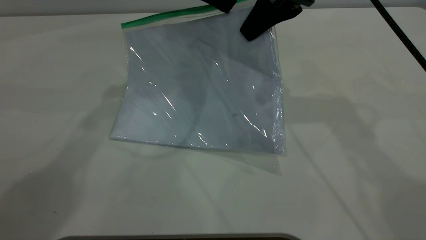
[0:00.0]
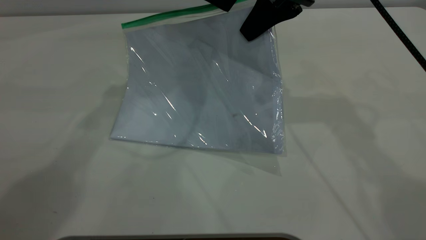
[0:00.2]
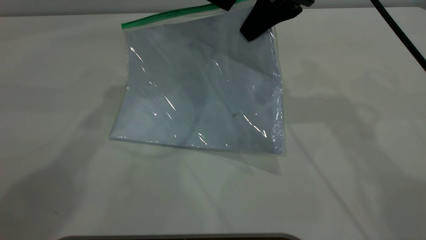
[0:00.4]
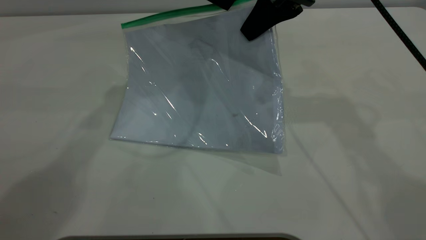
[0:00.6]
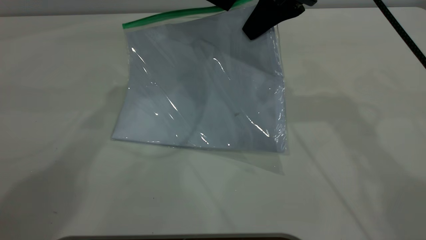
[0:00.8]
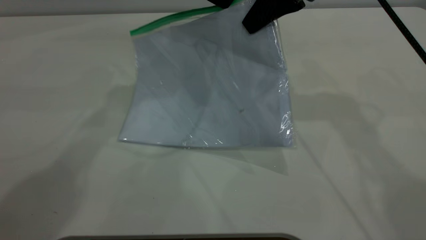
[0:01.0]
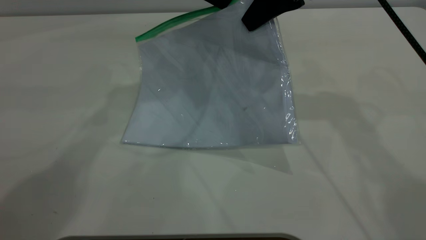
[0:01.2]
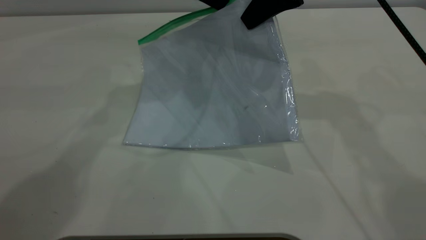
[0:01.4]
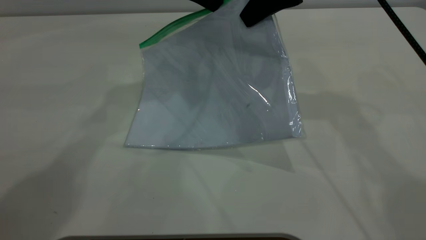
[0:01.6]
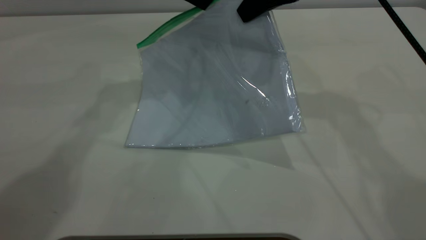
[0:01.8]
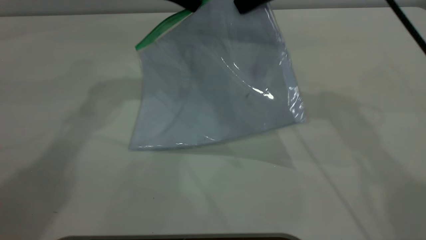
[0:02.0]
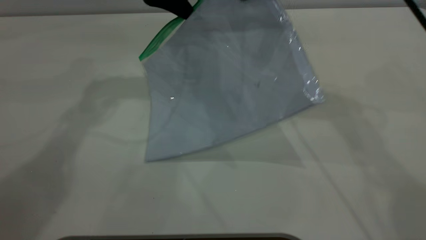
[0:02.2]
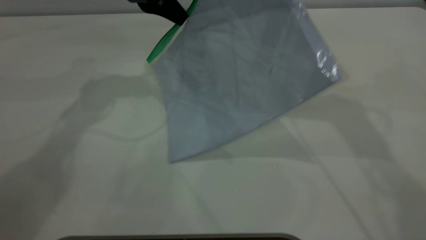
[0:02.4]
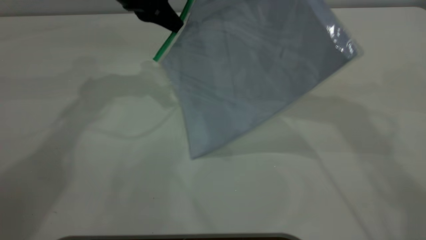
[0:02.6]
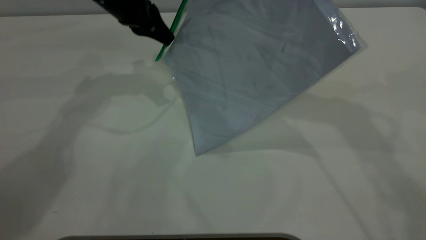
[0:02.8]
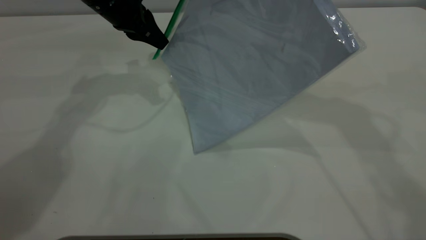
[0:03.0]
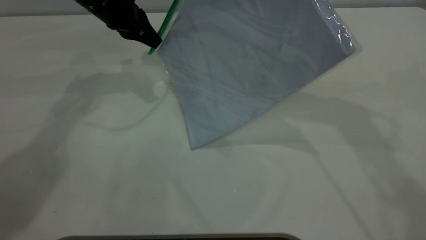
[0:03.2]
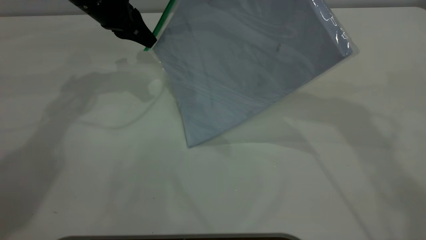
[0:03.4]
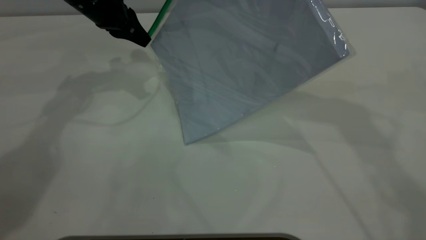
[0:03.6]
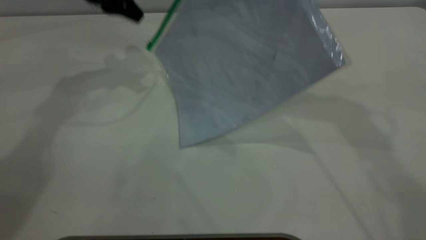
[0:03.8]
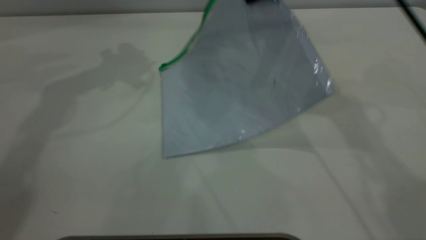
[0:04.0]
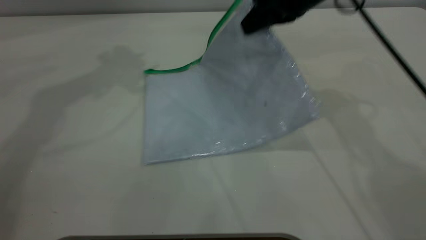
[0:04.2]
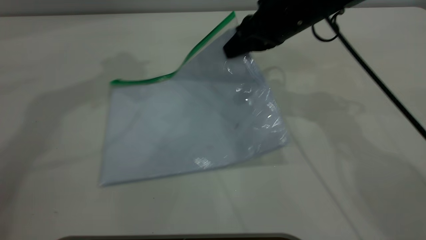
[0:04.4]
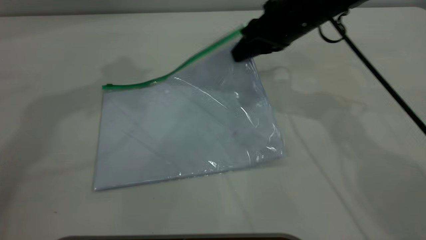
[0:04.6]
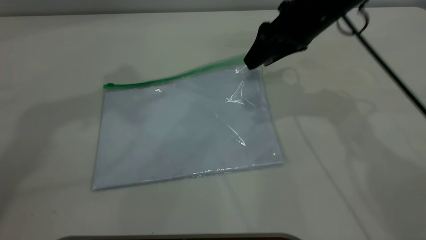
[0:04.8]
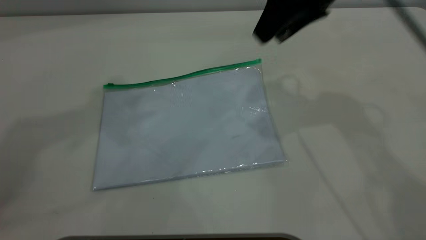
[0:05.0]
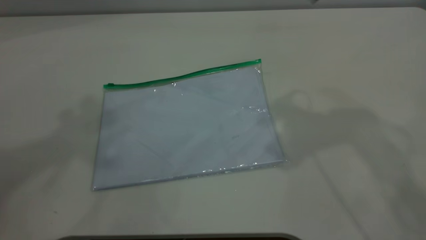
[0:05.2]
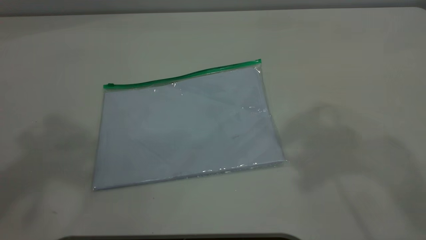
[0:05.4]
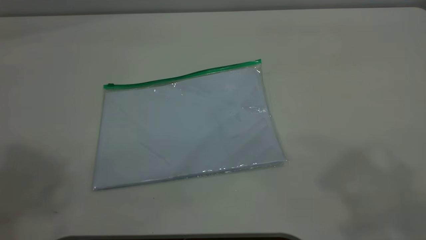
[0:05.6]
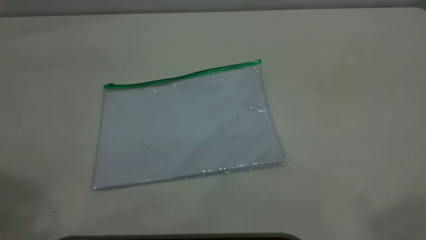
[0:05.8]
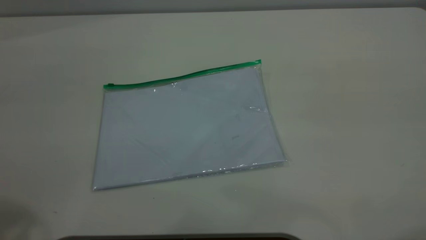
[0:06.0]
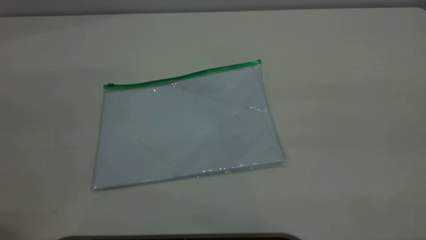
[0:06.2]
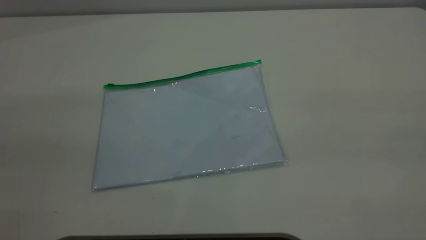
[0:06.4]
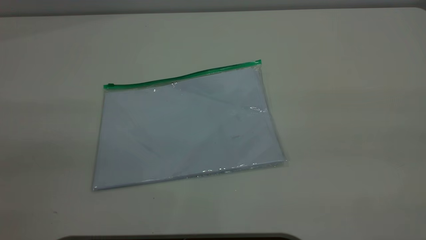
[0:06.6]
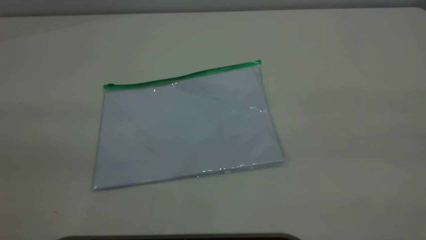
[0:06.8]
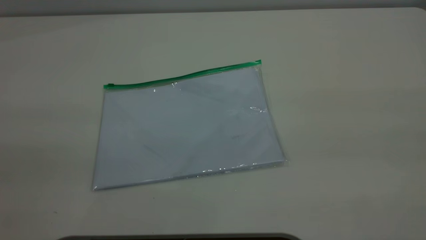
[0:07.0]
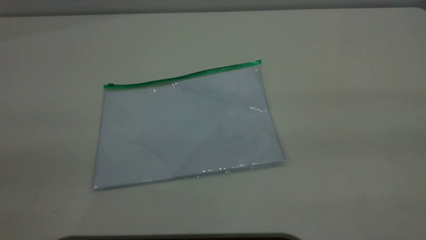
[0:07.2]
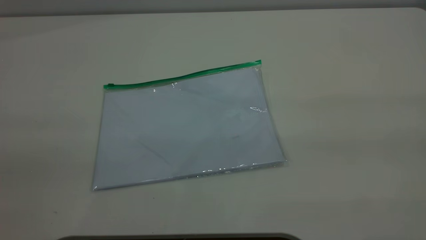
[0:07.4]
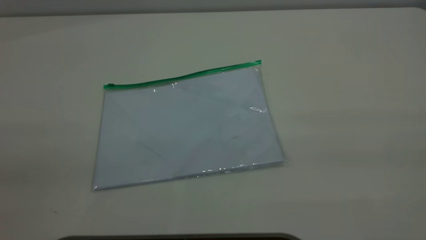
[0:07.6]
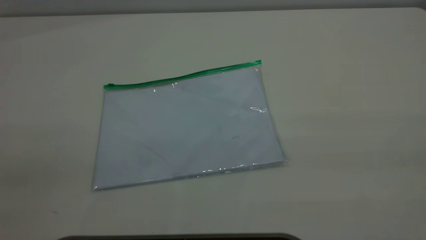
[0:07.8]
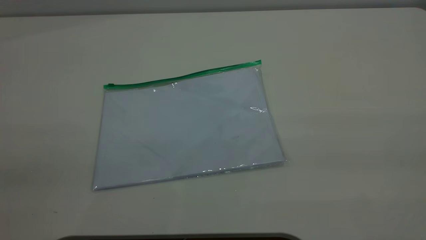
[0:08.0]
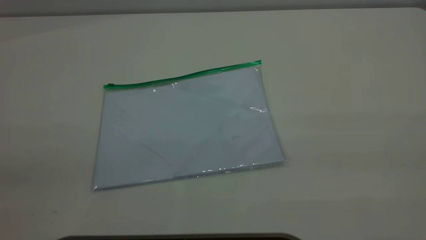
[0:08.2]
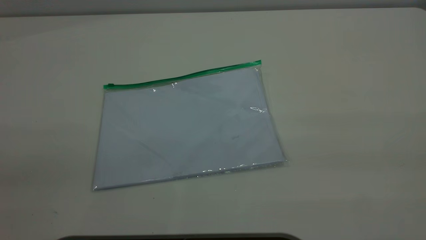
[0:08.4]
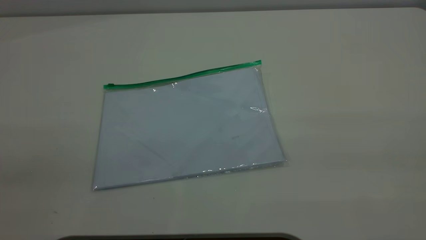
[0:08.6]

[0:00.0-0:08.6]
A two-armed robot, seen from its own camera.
Step, 0:00.0 to 0:03.6: Pulling up the zipper on the transparent plastic bag with the left gripper to close it.
Step, 0:03.8 to 0:04.8: Place the transparent plastic bag.
0:00.0 to 0:01.4: The left gripper closes its fingers.
0:01.4 to 0:02.8: The right gripper is displaced upward by about 10 cm, while the left gripper shifts some 10 cm to the left and downward.
0:02.8 to 0:04.4: The right gripper goes some 15 cm downward, while the left gripper is displaced upward by roughly 25 cm, and opens up.
0:04.4 to 0:05.8: The left gripper travels backward by about 25 cm, while the right gripper goes some 40 cm upward, backward and to the right, and opens up.

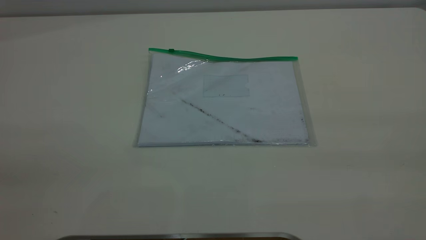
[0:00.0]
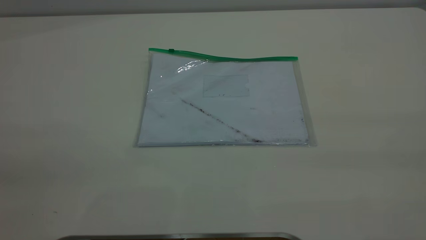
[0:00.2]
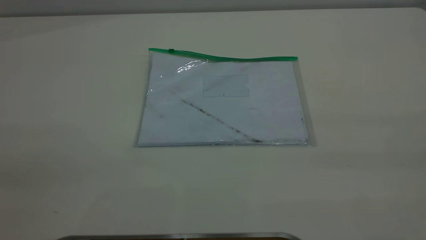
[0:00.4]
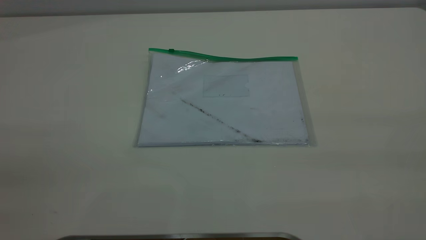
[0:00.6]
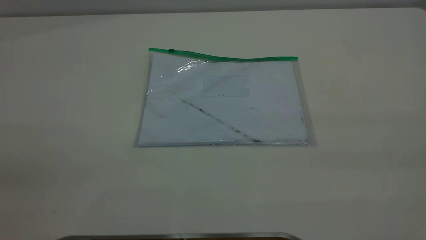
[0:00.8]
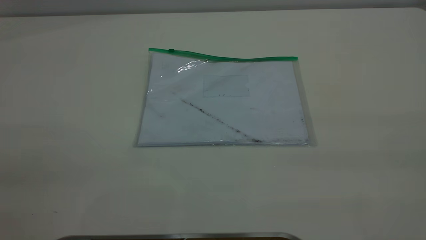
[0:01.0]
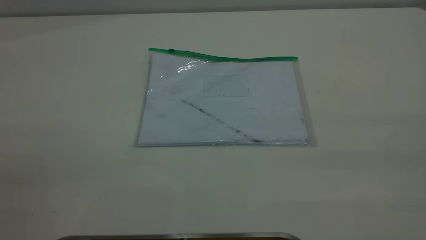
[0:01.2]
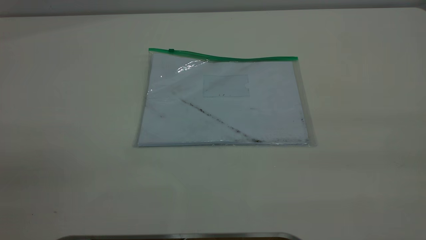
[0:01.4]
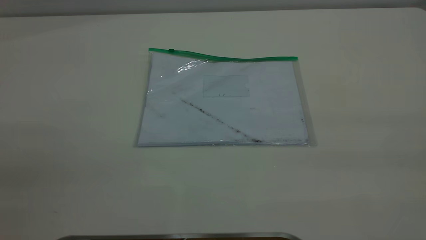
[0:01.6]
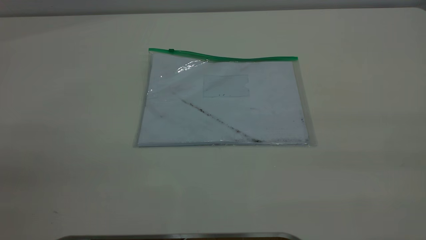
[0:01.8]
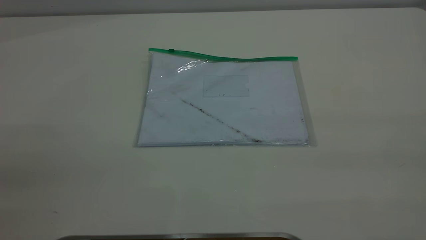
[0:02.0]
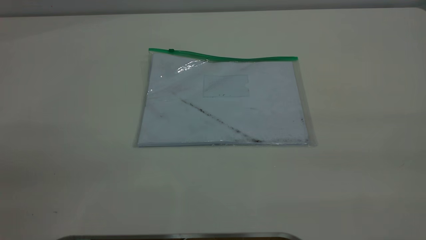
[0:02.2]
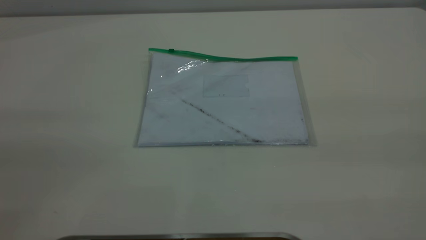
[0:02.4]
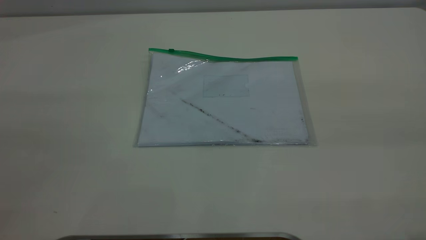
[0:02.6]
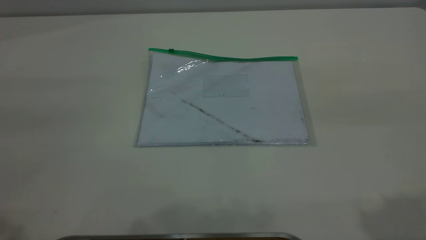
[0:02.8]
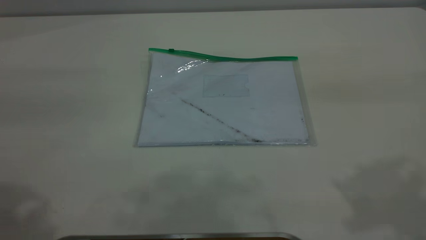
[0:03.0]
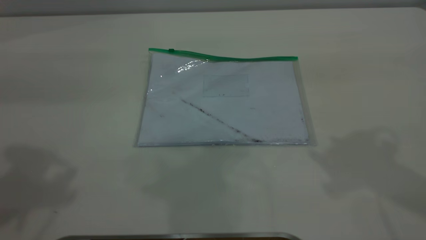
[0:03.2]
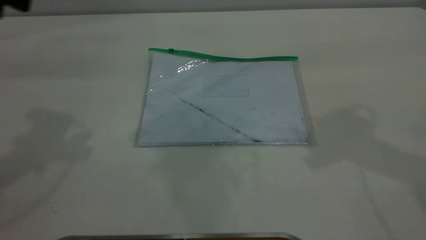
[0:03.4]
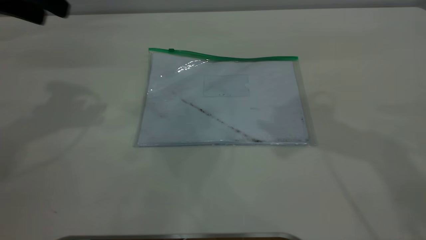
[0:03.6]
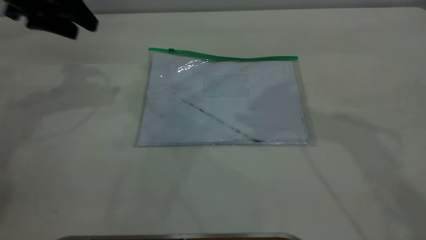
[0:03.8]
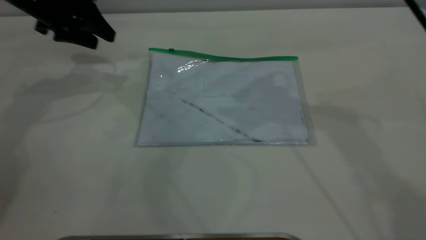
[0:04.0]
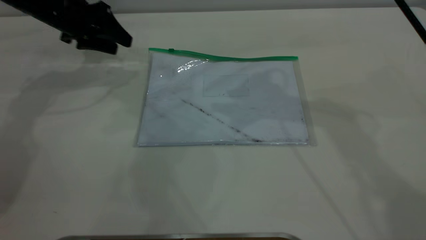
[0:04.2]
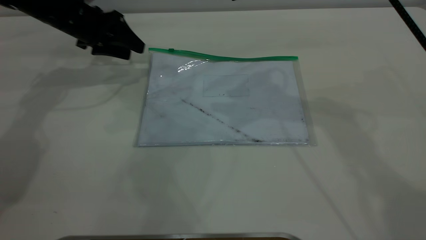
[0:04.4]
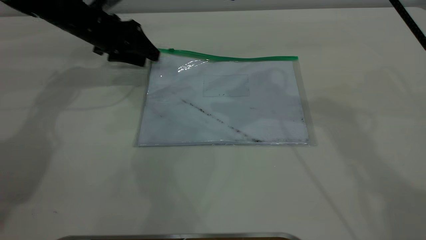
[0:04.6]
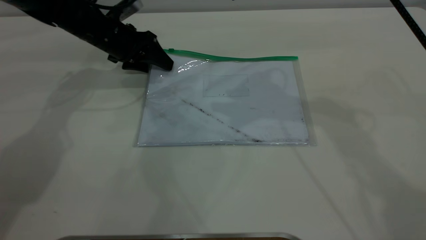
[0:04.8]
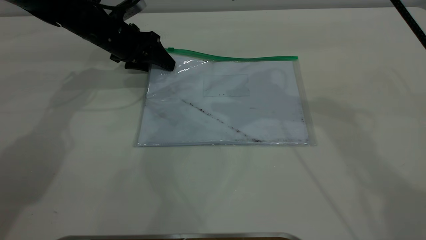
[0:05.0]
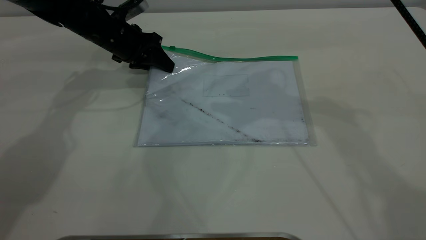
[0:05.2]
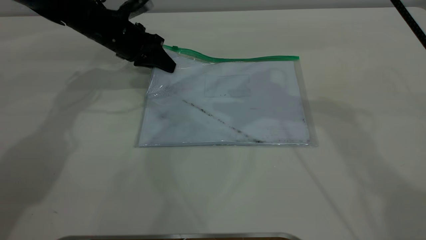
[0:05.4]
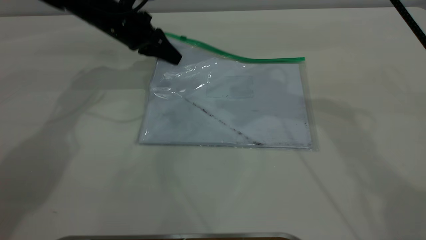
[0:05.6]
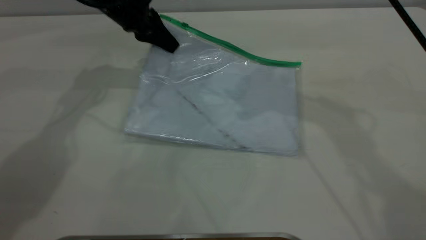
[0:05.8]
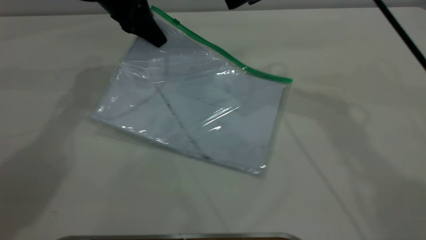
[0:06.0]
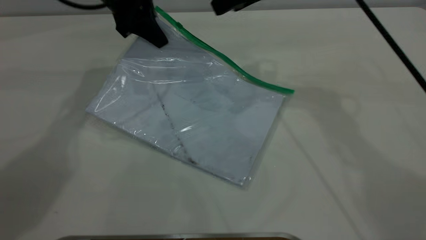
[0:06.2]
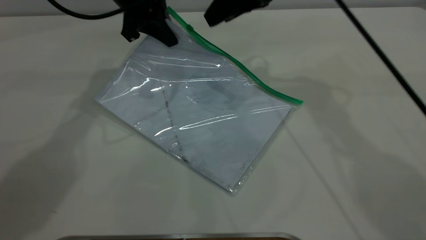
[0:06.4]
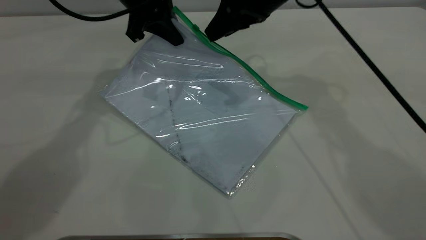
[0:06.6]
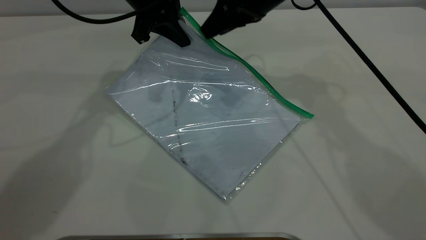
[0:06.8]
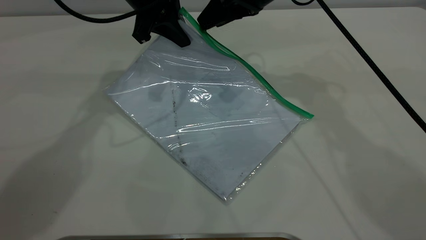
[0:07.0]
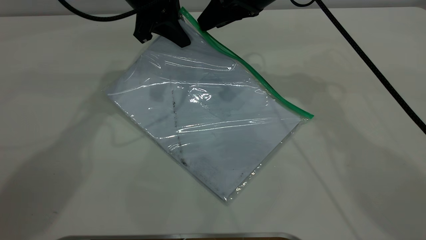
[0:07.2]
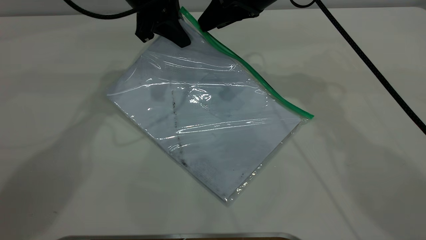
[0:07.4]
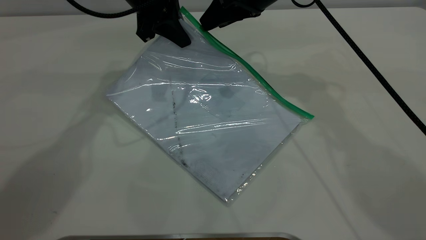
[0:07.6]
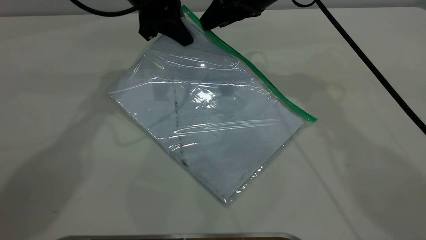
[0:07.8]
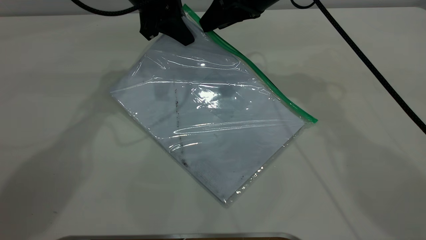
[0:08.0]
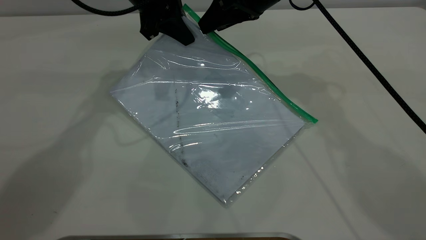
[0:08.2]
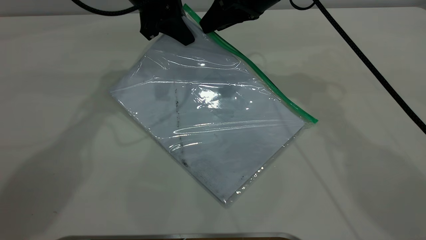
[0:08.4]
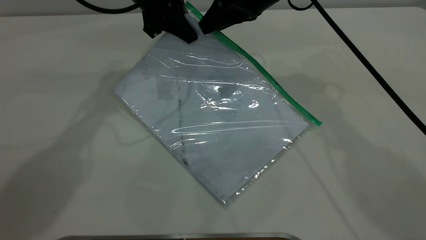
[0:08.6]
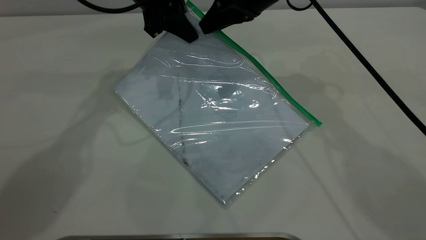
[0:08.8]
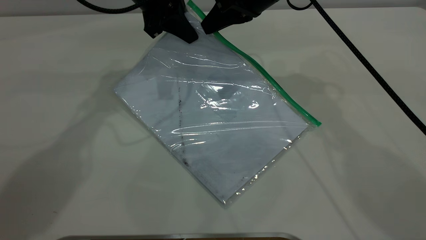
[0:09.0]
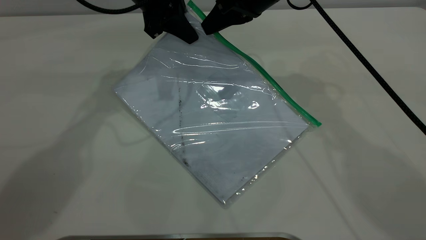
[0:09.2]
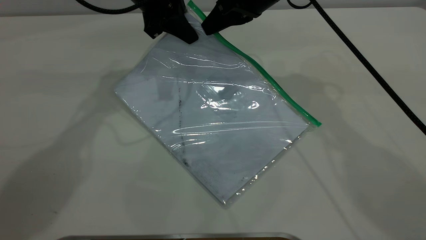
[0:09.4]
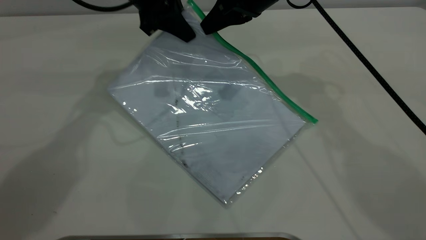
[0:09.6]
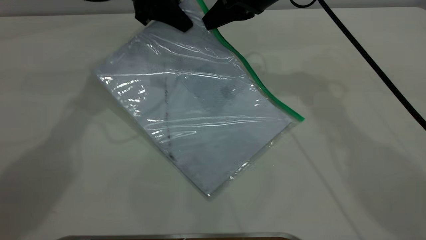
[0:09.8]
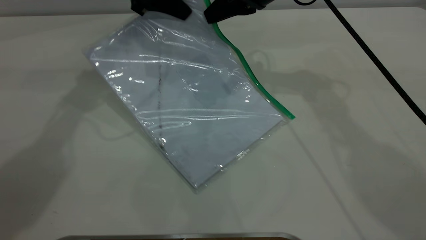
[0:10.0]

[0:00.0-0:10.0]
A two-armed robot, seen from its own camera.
Step, 0:00.0 to 0:05.6: Pick up the transparent plastic bag with the left gripper.
0:00.0 to 0:01.4: Both grippers stay put.
0:02.8 to 0:04.2: The left gripper heads forward and downward, covering some 40 cm. Meanwhile the right gripper heads forward and to the left, covering approximately 30 cm.
0:04.2 to 0:05.8: The left gripper moves to the right, roughly 10 cm, and closes.
0:05.8 to 0:07.2: The right gripper shifts some 10 cm downward and forward. The left gripper changes place by roughly 5 cm.
0:07.2 to 0:08.6: The grippers move only a little.
0:08.6 to 0:10.0: The right gripper closes its fingers.
